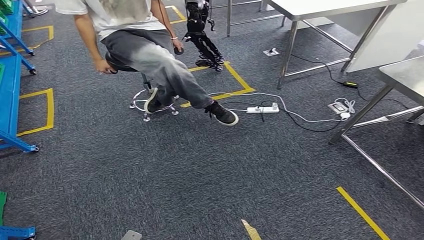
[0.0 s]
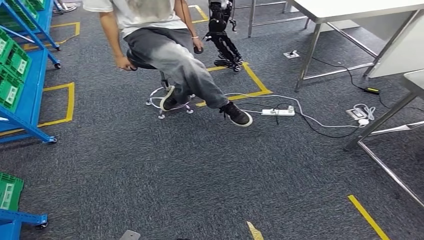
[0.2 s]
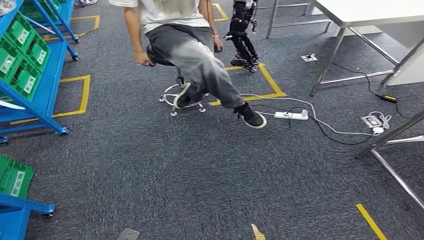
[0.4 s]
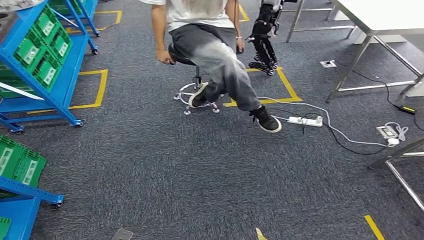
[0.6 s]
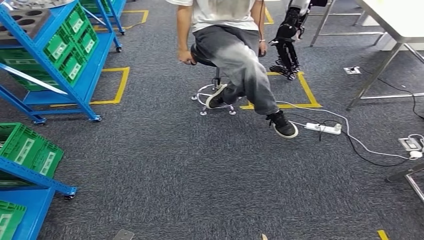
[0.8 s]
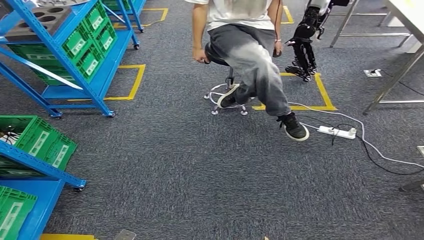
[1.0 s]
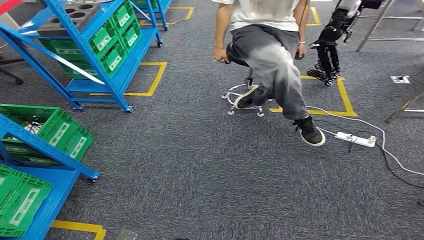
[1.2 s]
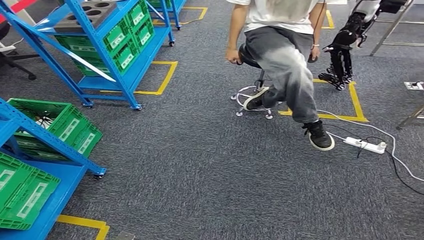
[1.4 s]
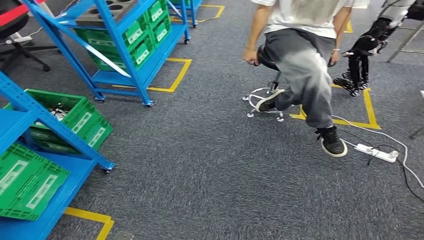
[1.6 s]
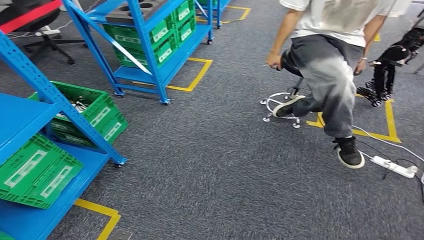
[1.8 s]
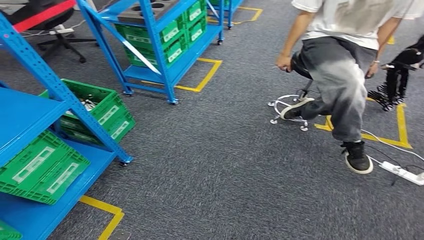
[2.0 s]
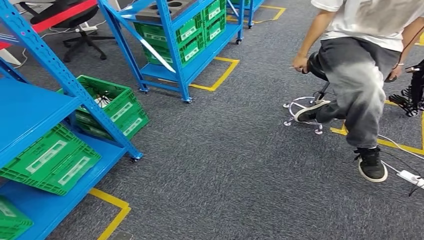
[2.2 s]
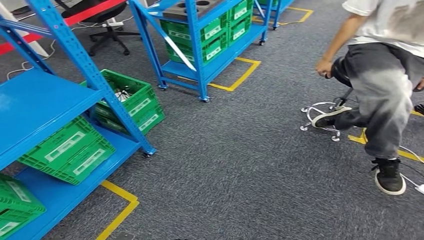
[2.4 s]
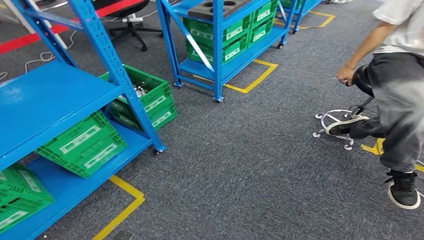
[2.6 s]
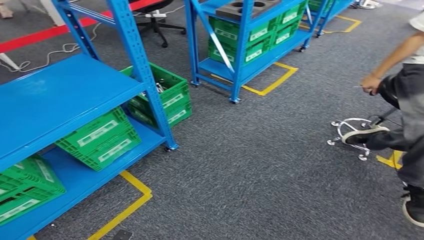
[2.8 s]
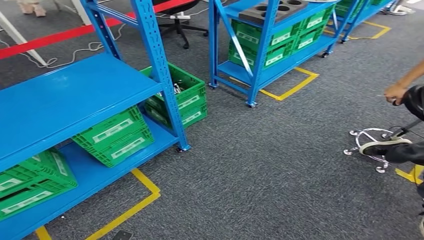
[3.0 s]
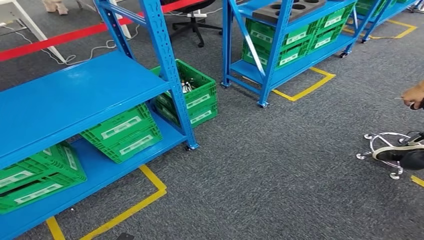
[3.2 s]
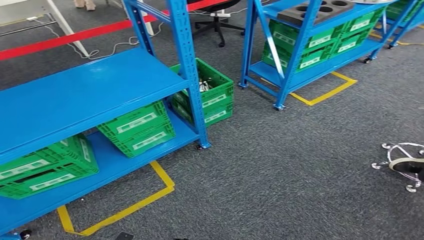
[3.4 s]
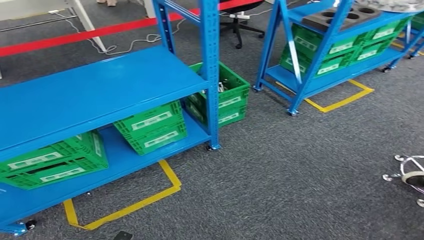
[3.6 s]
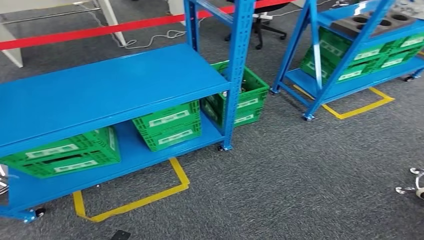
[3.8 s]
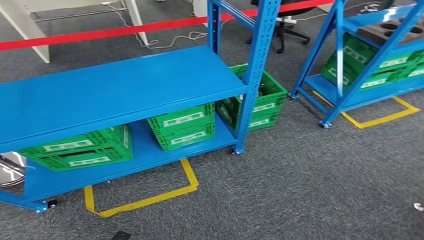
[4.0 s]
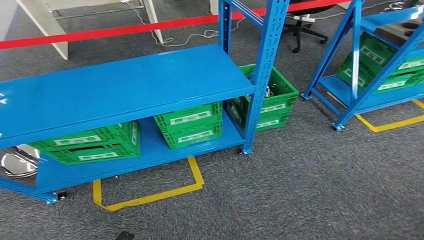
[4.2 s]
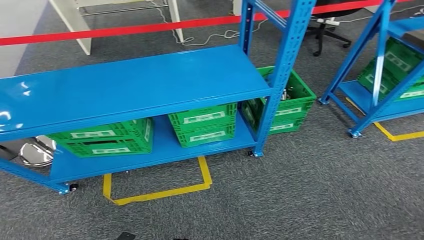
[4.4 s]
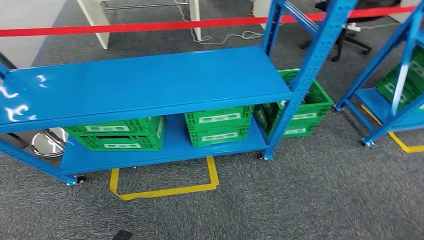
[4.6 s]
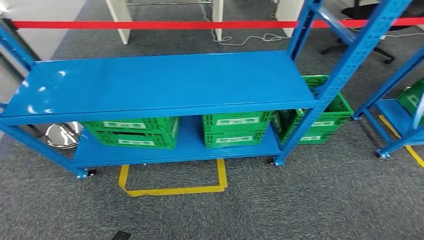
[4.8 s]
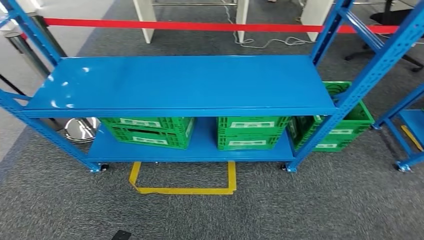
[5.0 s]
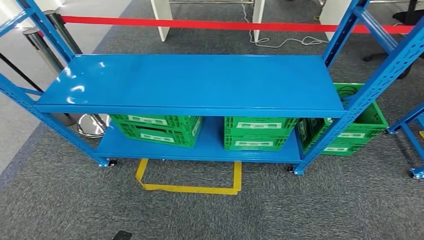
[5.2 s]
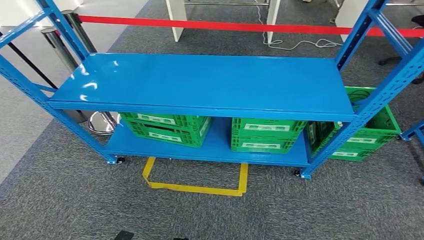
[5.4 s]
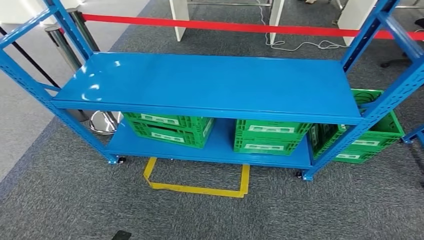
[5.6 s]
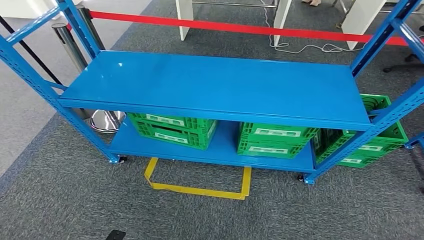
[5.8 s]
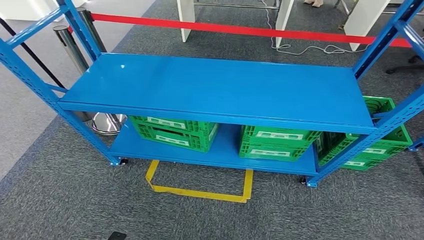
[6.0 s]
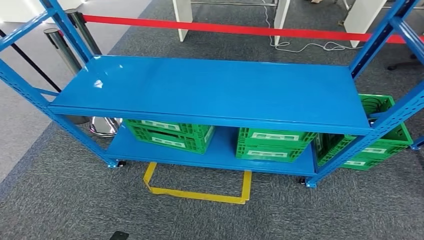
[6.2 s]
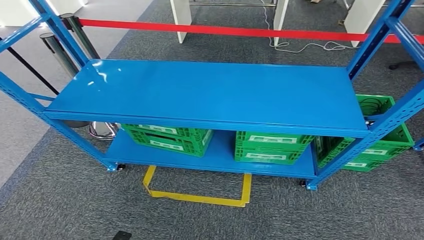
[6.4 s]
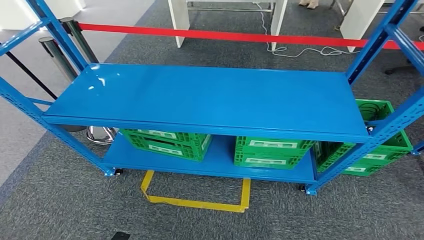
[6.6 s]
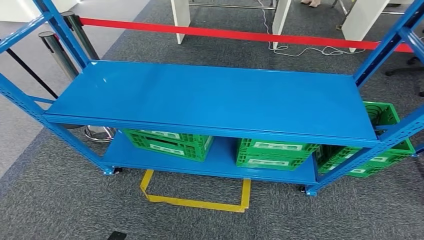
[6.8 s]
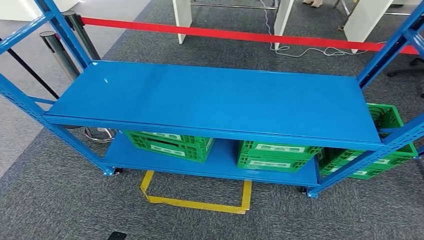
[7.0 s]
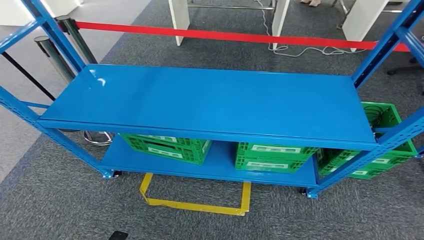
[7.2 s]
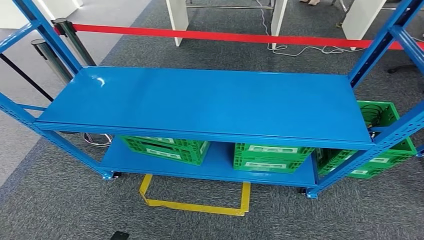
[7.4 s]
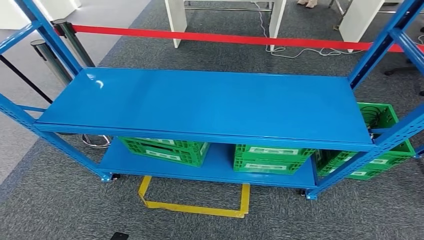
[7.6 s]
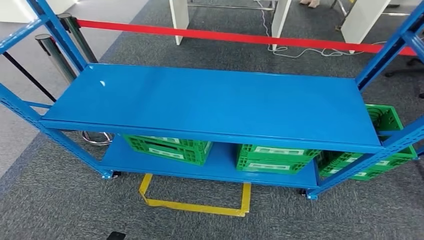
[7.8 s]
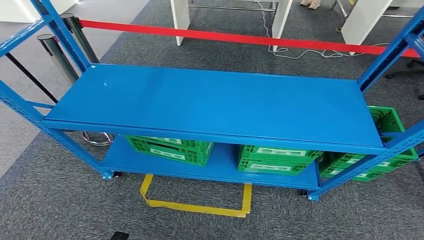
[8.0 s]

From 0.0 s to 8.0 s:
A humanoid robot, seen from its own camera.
Step, from 0.0 s to 8.0 s: Move to the initial position at the workbench.
